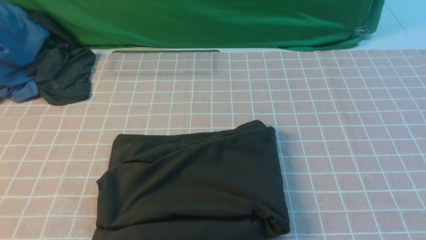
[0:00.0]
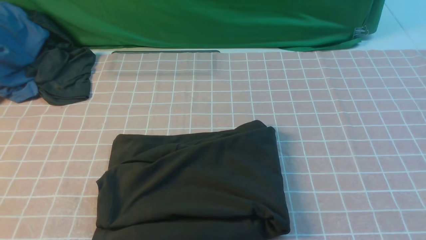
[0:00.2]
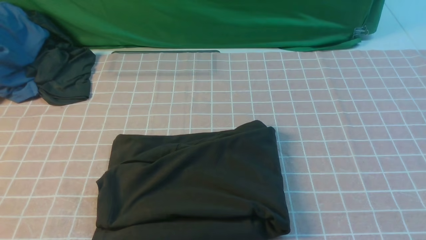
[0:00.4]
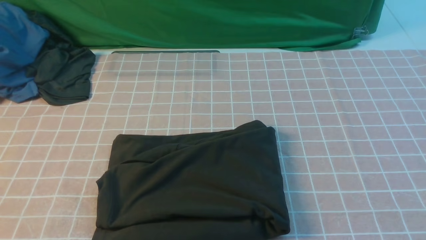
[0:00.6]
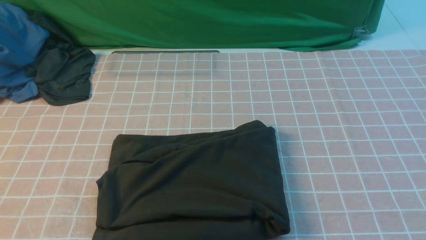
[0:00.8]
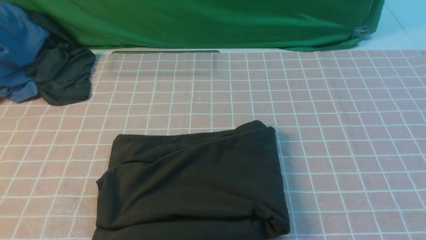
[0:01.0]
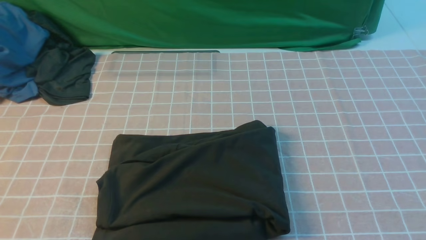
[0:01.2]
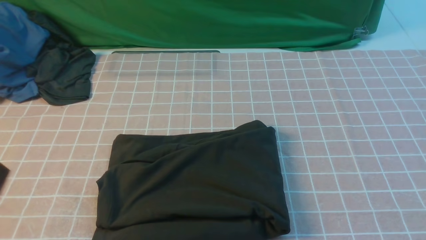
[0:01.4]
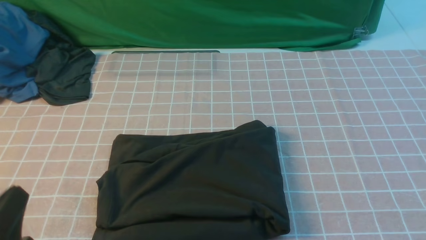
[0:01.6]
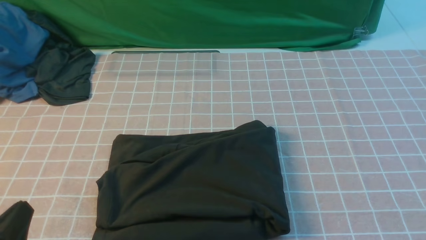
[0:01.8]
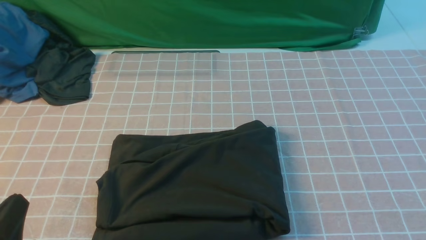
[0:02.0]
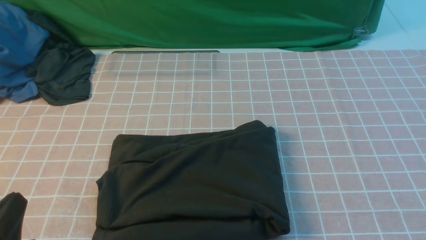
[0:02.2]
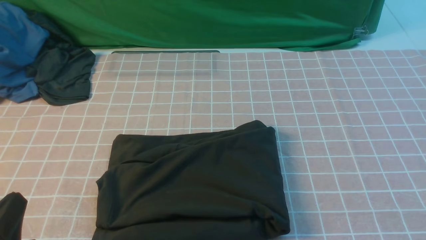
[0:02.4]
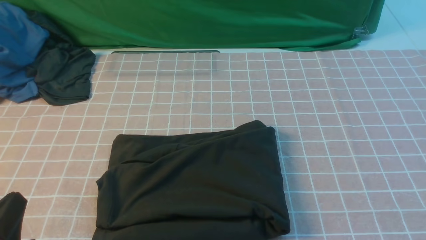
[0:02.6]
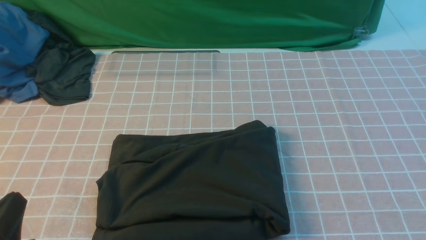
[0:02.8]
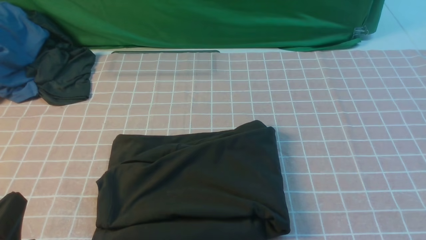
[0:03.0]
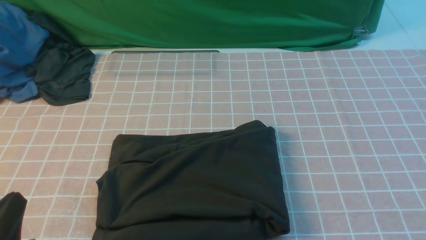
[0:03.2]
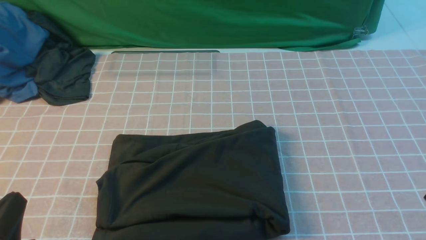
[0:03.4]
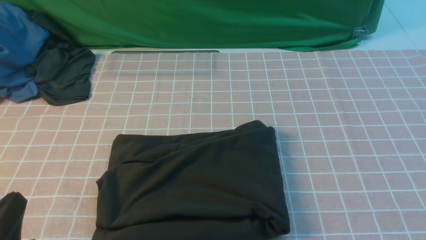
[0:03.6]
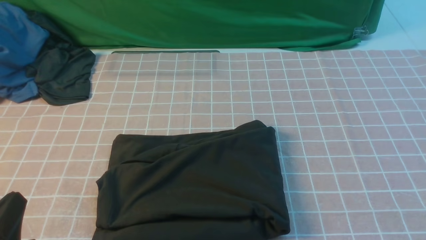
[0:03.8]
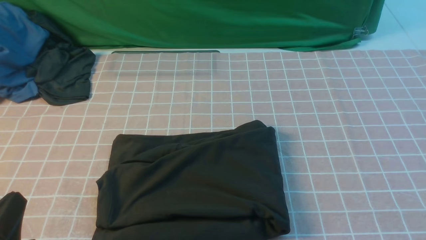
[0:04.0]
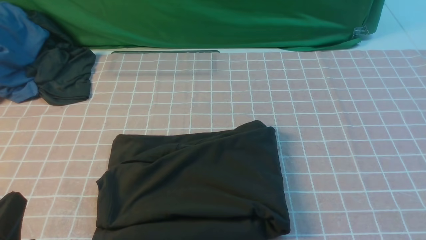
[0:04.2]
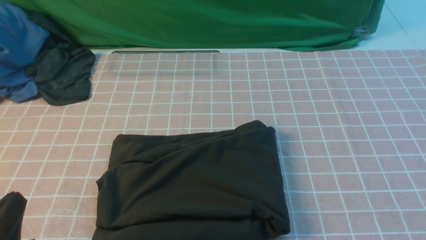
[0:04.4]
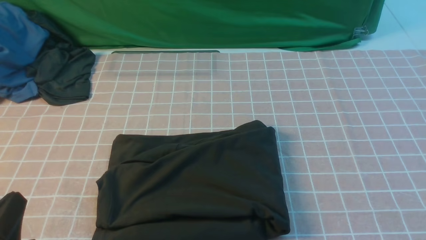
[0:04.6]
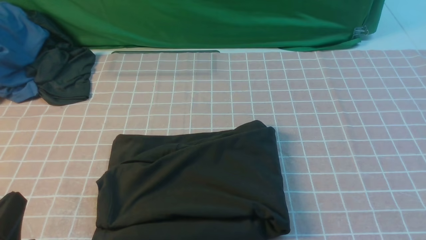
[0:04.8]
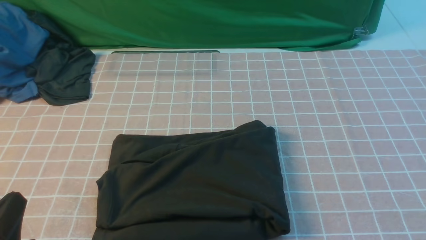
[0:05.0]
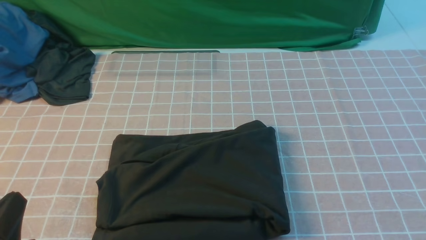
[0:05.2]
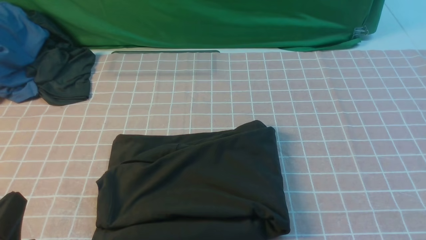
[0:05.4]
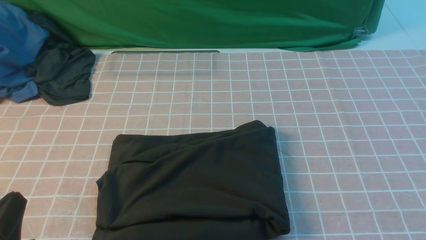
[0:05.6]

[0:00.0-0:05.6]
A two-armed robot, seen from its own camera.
0:01.4 to 0:02.8: The left gripper shifts approximately 5 cm downward.
0:04.2 to 0:05.6: Both grippers stay about where they are.
